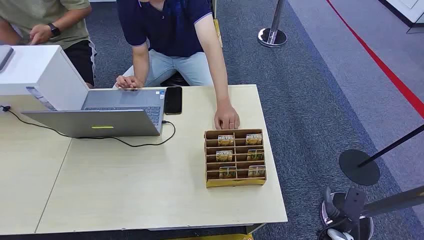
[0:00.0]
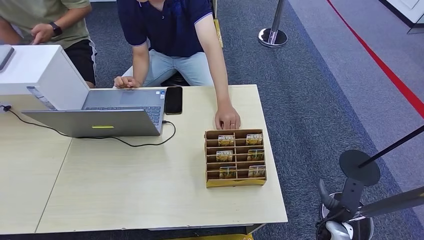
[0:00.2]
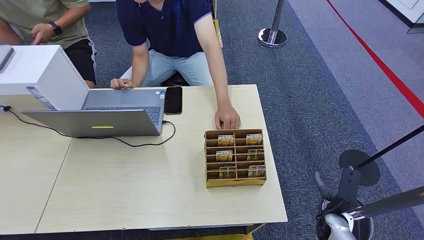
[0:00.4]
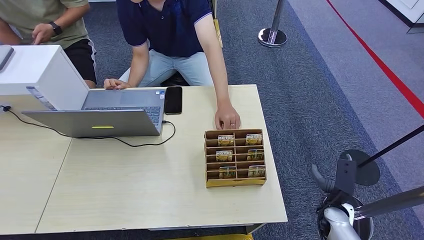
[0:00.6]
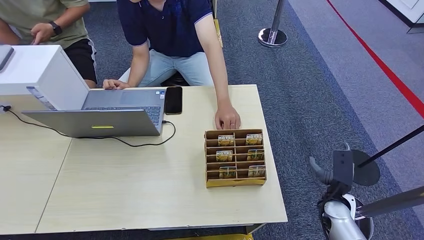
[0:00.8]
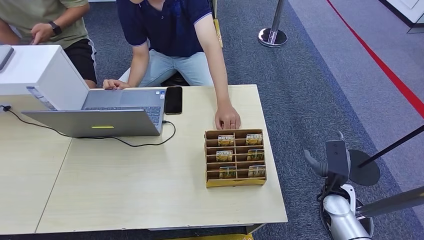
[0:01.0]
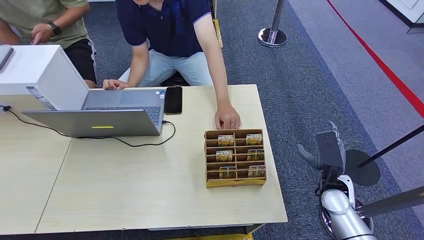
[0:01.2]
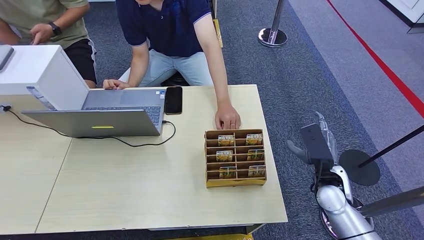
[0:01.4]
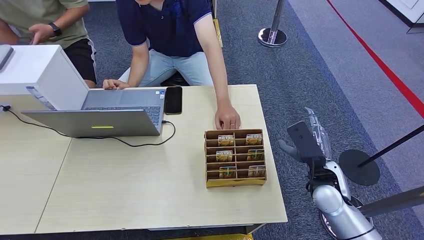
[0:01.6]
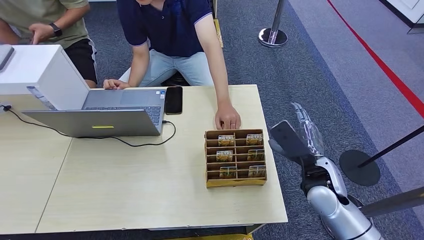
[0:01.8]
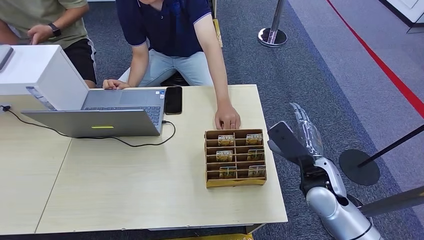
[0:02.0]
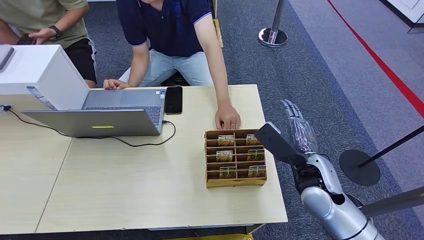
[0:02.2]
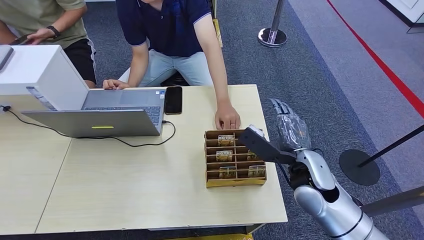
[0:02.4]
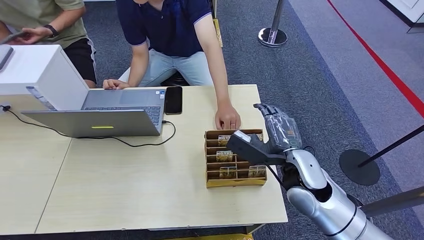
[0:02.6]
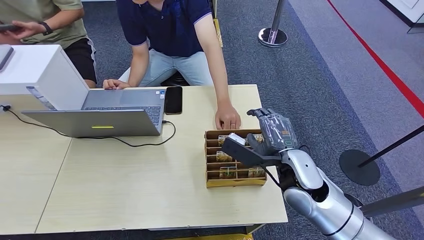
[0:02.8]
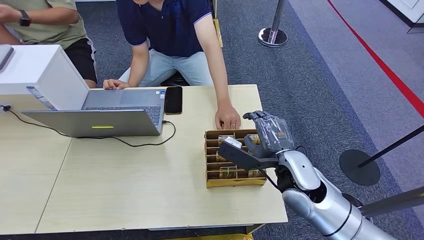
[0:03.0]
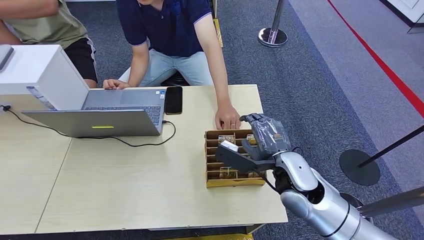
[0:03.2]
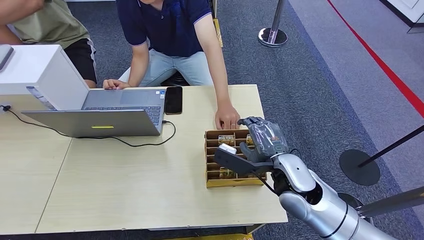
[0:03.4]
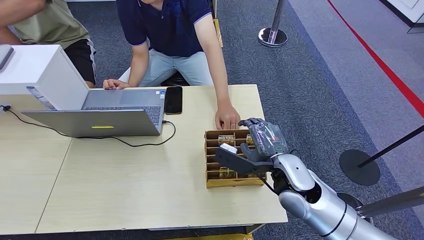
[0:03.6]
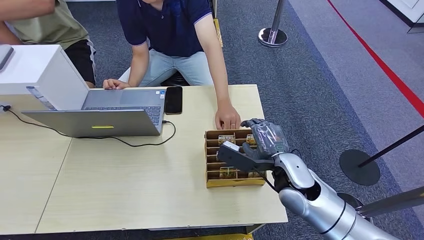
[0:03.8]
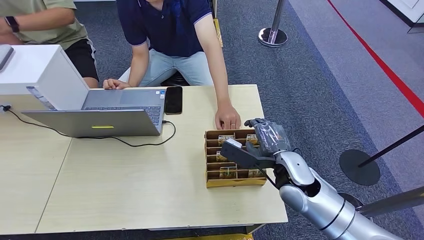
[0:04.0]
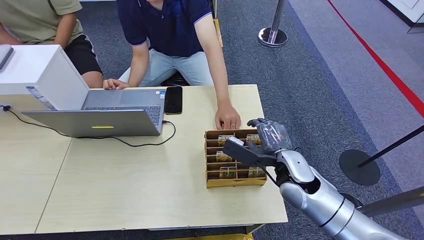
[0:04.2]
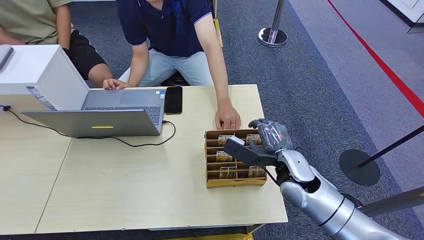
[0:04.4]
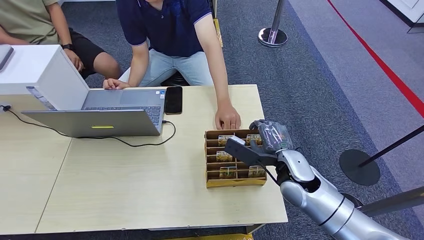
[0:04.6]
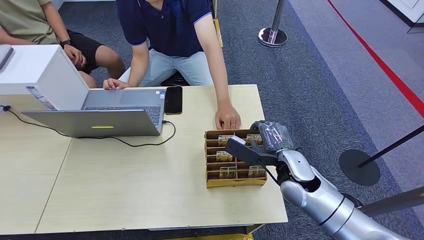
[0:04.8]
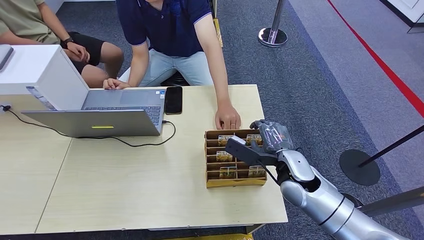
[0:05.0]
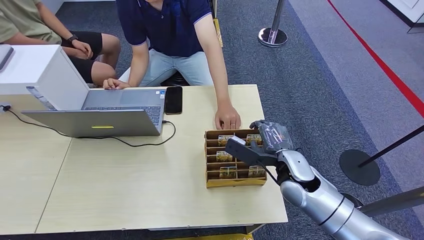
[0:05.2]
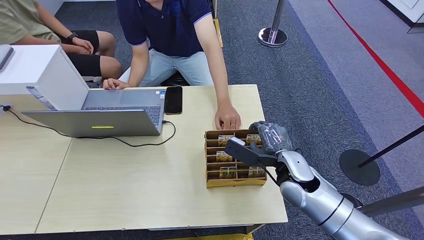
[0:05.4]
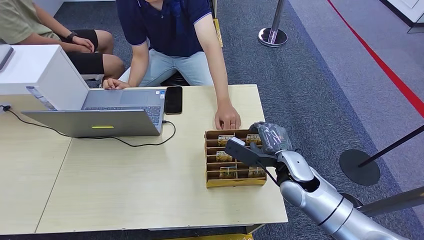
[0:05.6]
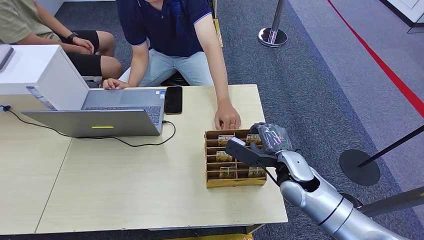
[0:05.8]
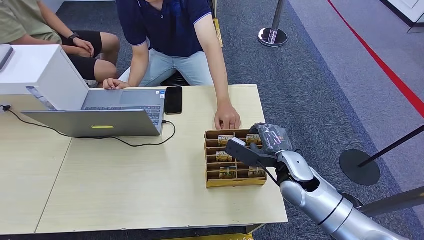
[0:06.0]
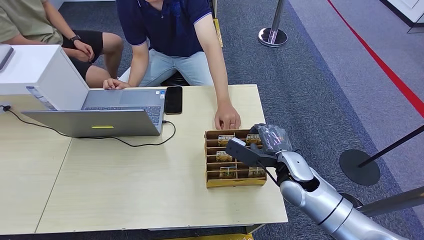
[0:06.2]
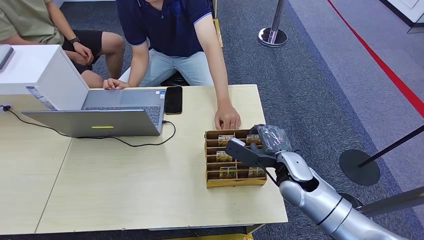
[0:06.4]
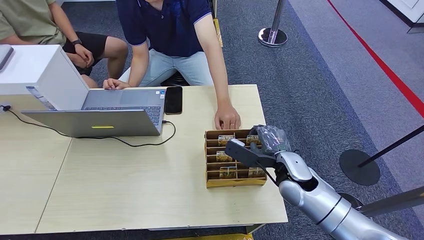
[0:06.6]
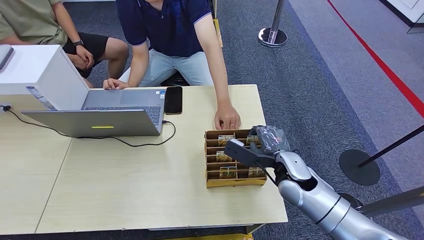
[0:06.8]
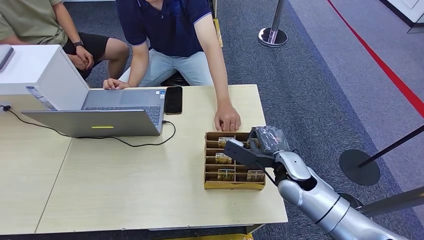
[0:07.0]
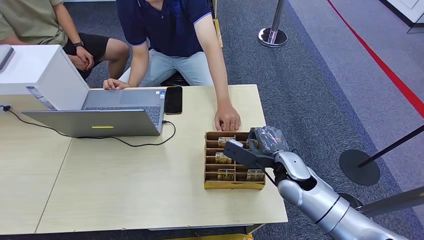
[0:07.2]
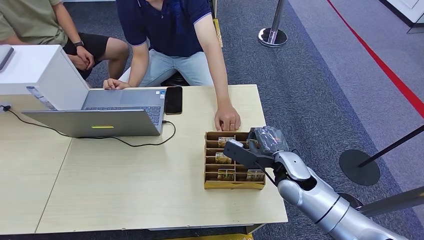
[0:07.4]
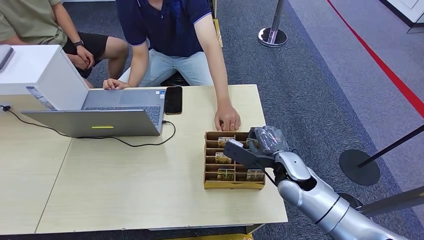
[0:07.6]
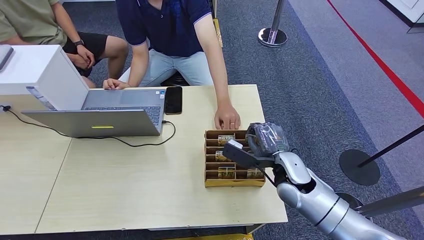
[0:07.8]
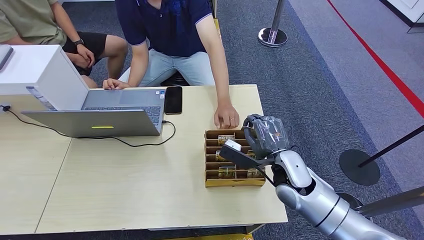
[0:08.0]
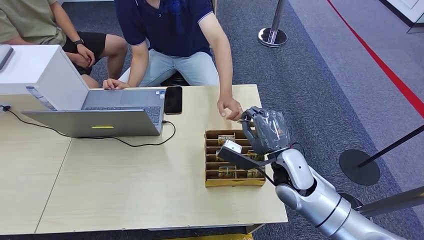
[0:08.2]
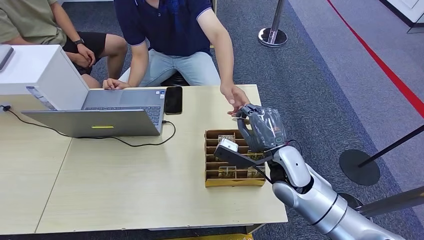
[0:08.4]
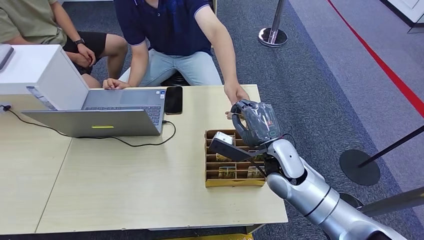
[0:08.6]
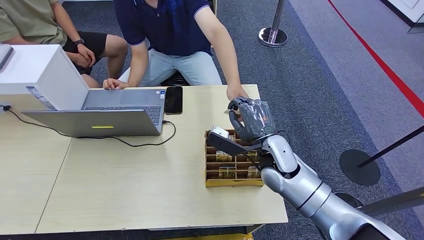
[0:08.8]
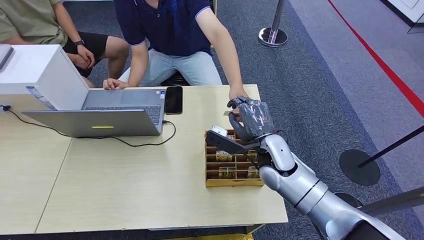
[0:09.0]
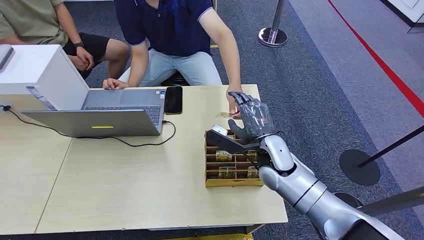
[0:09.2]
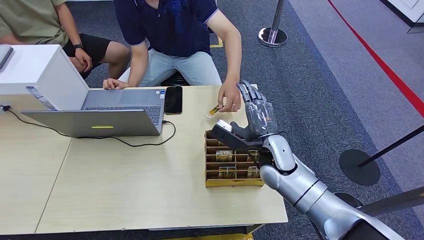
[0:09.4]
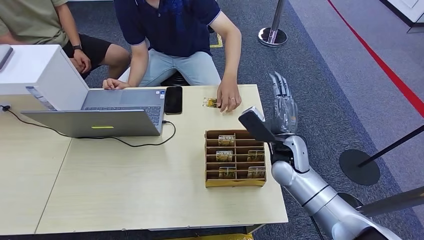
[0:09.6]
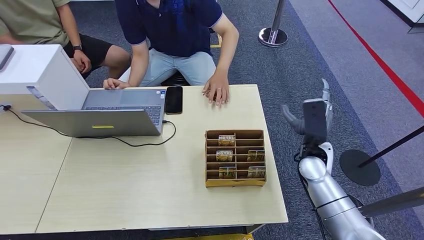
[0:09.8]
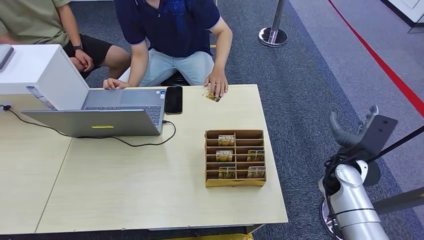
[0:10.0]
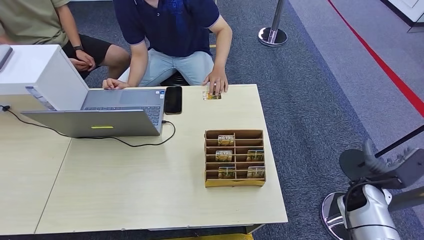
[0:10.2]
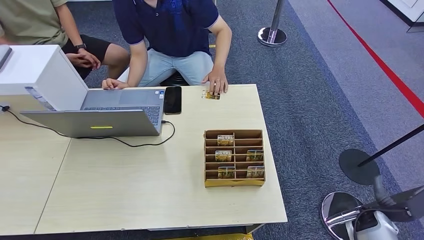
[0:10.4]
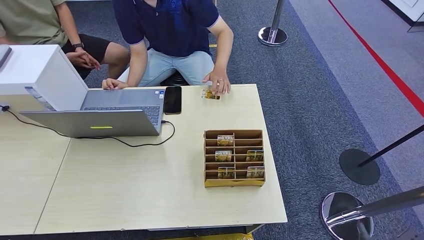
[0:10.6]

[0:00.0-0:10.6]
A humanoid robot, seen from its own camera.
Step, 0:00.0 to 0:08.2: Pick up the room card from the card holder.
Step, 0:08.4 to 0:10.6: Hand the room card to the target.
0:01.6 to 0:03.0: The hands move only a little.
0:03.0 to 0:04.6: The right hand moves about 5 cm.
0:04.6 to 0:06.0: The two hands keep their place.
0:06.0 to 0:07.6: The hands move only a little.
0:07.6 to 0:09.0: The right hand is displaced forward by about 5 cm.
0:09.0 to 0:10.6: The right hand goes roughly 50 cm backward, downward and to the right.
